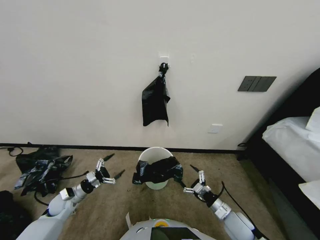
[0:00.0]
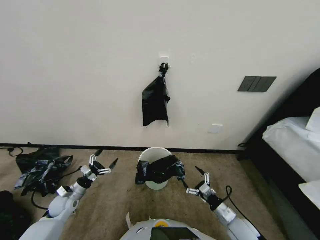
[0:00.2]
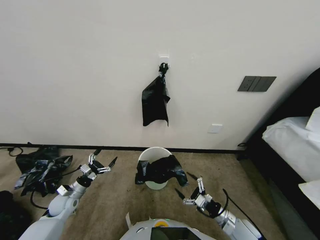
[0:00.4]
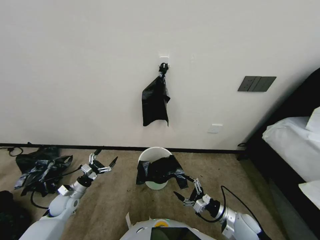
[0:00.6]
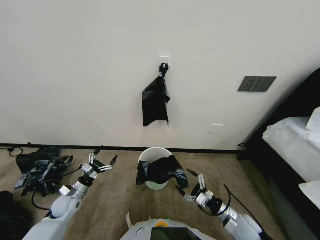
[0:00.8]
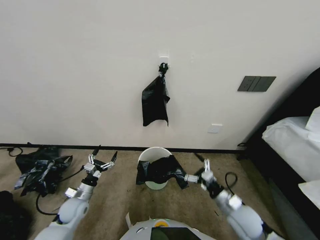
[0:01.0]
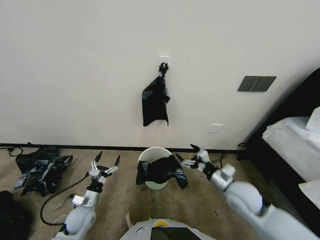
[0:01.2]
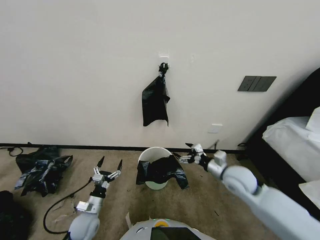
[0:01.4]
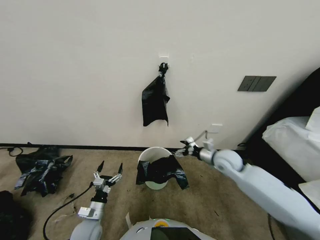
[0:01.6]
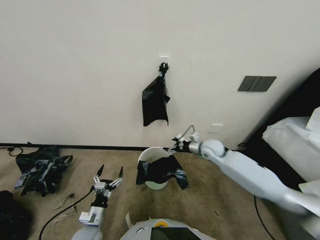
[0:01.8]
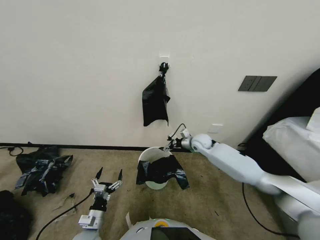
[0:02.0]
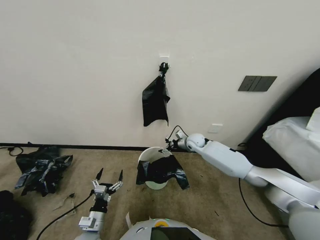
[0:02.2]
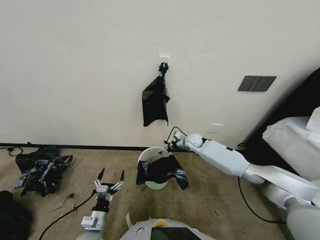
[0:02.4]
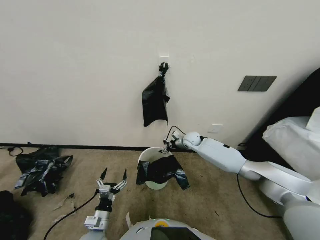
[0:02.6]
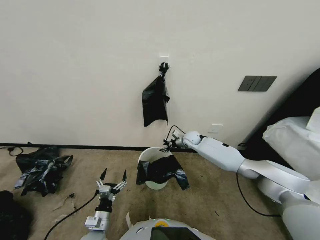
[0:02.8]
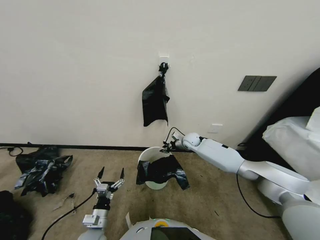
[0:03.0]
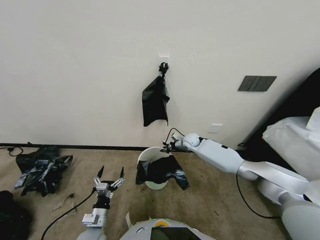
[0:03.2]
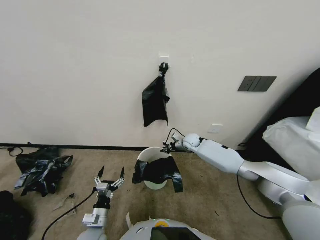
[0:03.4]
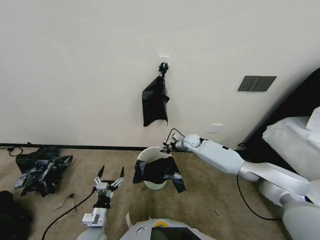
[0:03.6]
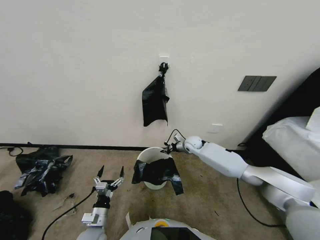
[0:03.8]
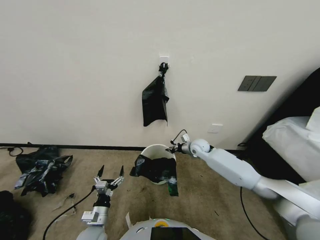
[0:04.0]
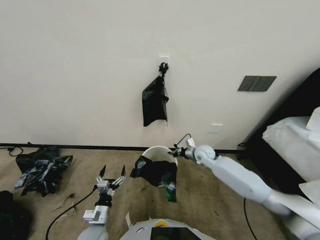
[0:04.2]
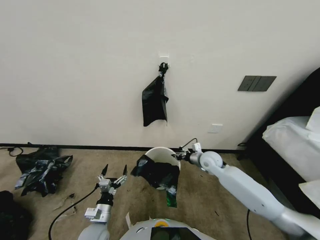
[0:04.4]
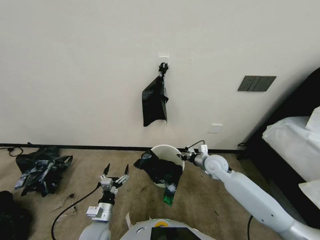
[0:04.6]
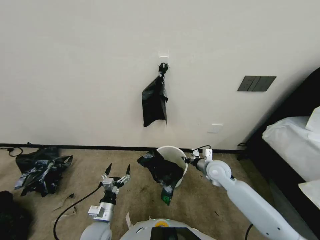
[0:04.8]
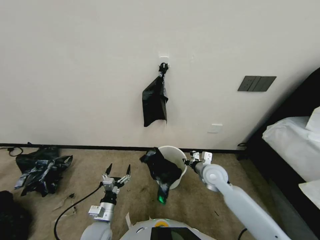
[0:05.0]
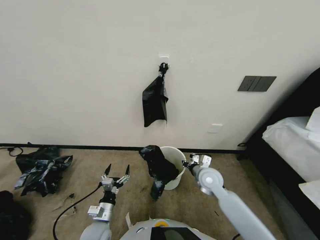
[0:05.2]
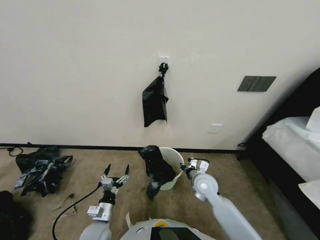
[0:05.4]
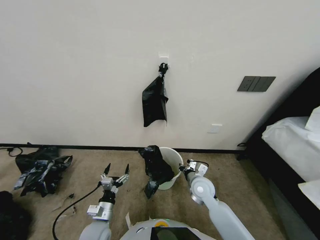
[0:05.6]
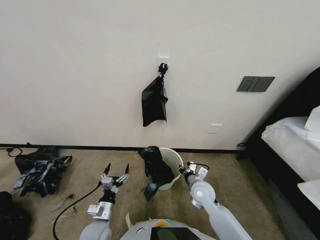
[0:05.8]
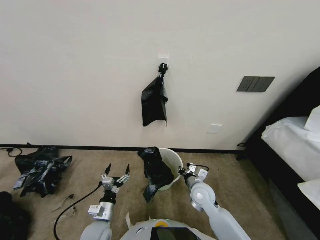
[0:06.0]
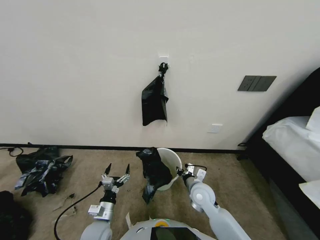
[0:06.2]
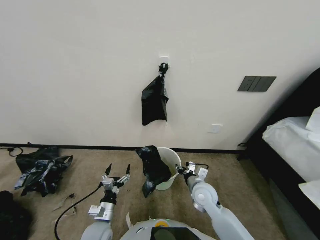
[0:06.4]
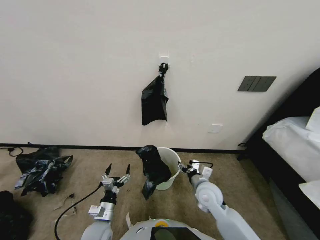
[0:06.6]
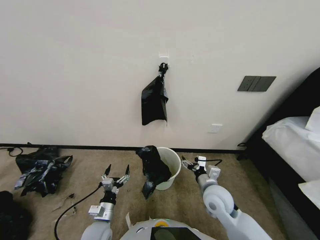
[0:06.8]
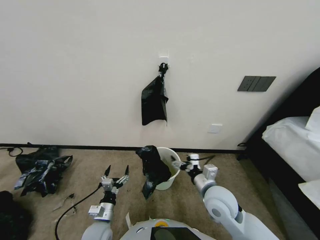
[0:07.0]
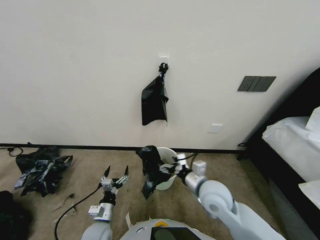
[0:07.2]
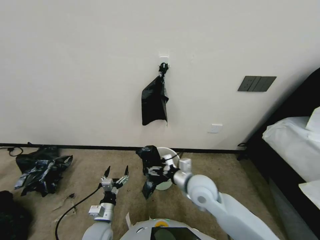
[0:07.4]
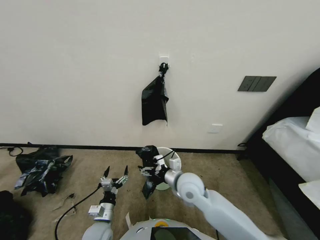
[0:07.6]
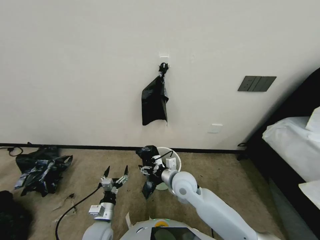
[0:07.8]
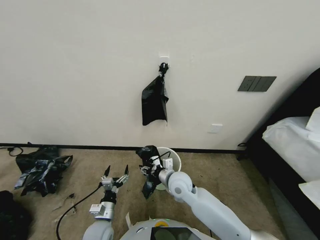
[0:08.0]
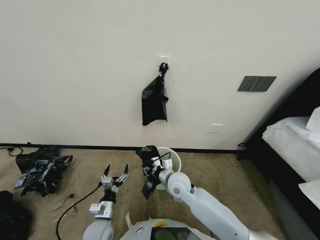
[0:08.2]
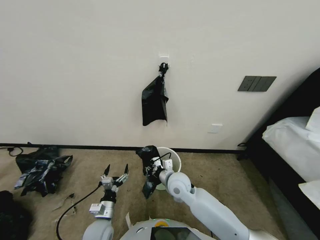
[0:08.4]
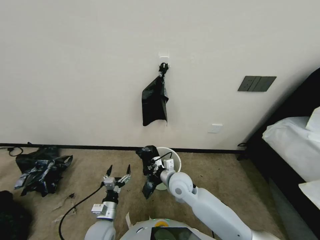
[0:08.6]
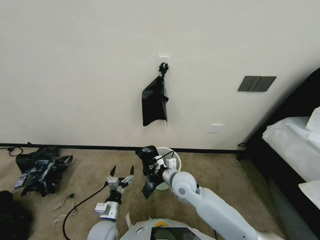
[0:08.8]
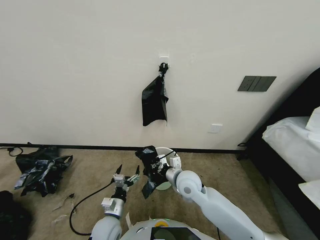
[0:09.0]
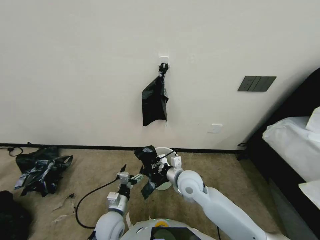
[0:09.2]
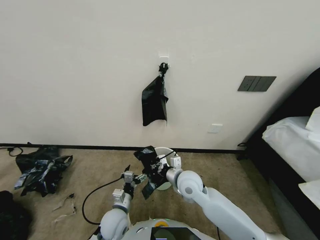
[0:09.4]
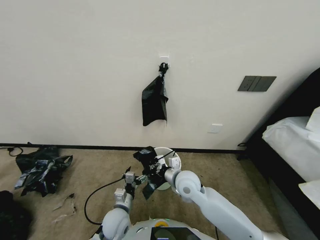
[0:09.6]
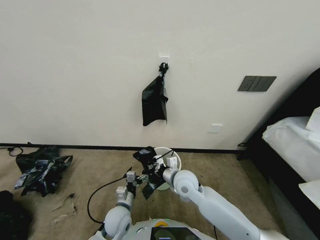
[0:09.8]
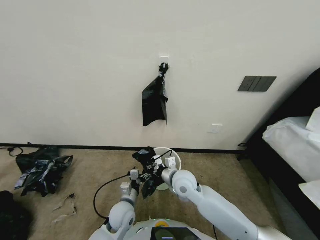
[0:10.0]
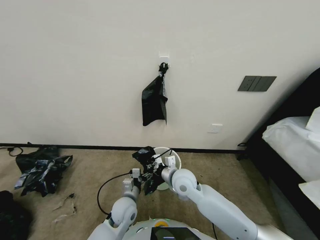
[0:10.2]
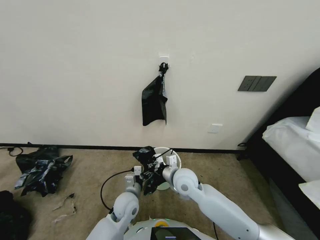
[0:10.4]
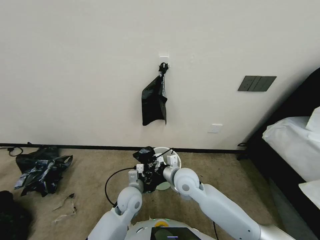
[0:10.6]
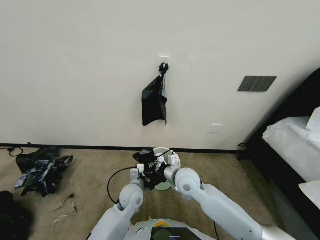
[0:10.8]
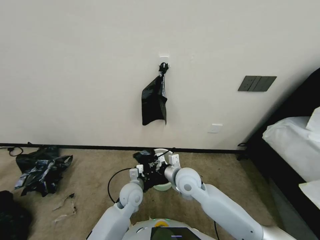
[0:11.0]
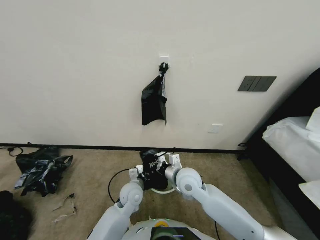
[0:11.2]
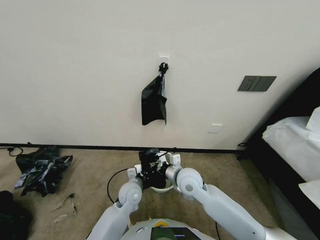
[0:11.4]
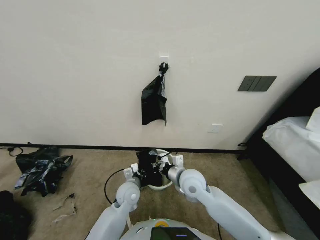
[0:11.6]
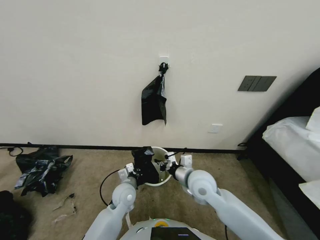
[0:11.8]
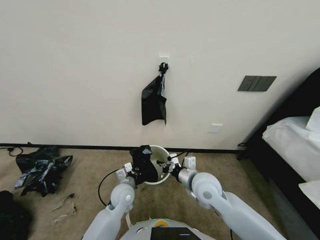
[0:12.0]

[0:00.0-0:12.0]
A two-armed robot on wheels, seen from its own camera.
Task of the whole recording: Place a trash bag onto the trash bin.
0:00.0 to 0:01.6: The left gripper travels to the right and backward by about 15 cm, while the right gripper travels upward and forward by roughly 25 cm.
0:01.6 to 0:03.0: The right gripper goes about 25 cm forward and to the left, and closes its fingers, while the left gripper ends up about 5 cm from where it was.
0:03.0 to 0:04.4: The right gripper goes approximately 15 cm backward, and closes its fingers.
0:04.4 to 0:06.0: The right gripper heads backward and to the left, covering about 15 cm.
0:06.0 to 0:07.6: The right gripper goes about 10 cm upward and to the left, and opens.
0:07.6 to 0:09.0: The right gripper closes.
0:09.0 to 0:10.4: The left gripper goes approximately 10 cm forward and to the right.
0:10.4 to 0:12.0: The left gripper closes up. The right gripper is displaced to the right by some 5 cm.

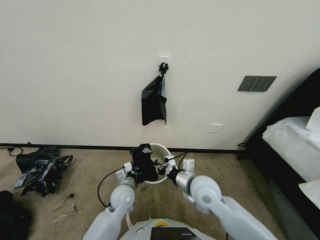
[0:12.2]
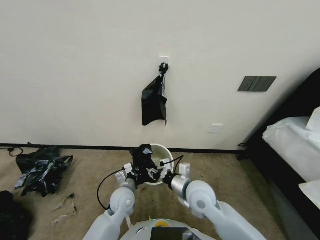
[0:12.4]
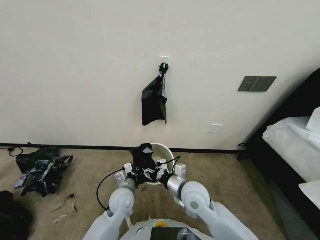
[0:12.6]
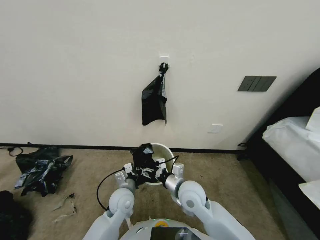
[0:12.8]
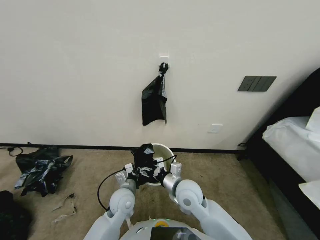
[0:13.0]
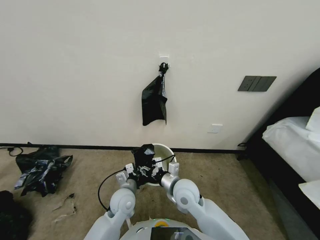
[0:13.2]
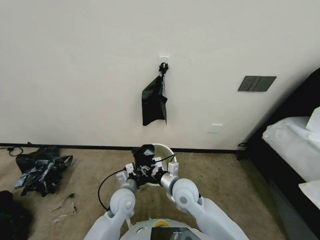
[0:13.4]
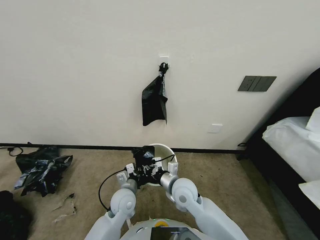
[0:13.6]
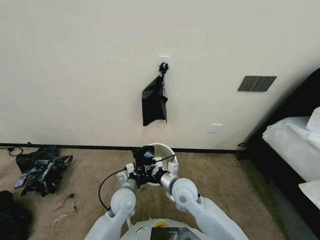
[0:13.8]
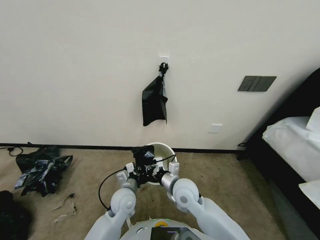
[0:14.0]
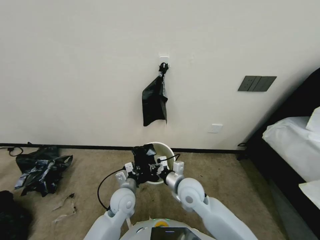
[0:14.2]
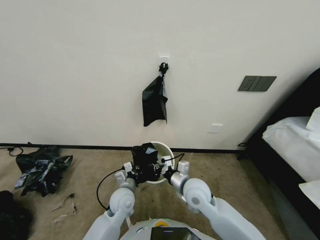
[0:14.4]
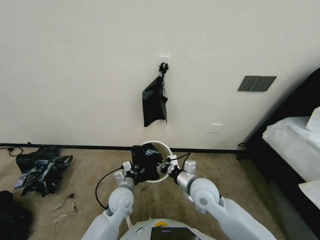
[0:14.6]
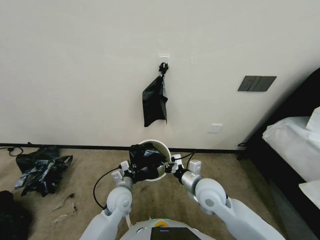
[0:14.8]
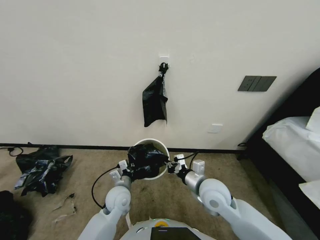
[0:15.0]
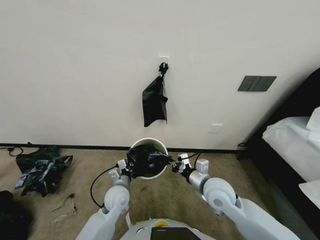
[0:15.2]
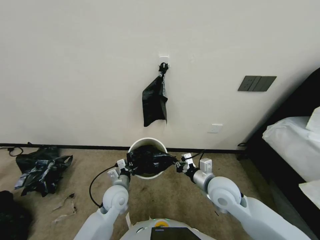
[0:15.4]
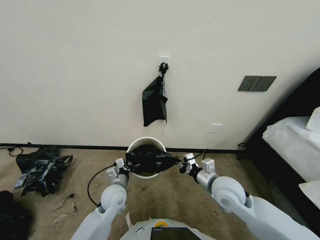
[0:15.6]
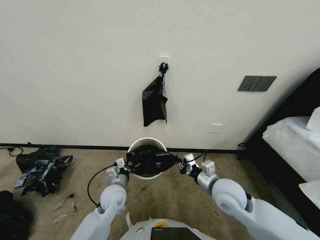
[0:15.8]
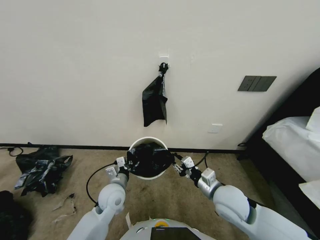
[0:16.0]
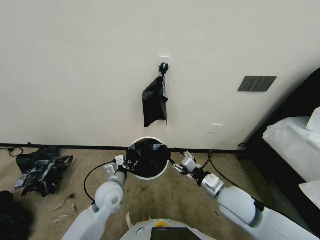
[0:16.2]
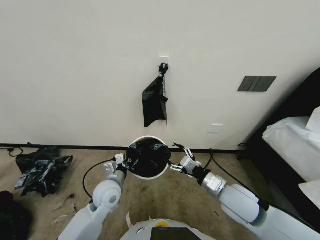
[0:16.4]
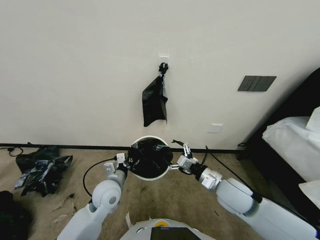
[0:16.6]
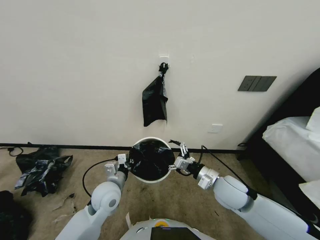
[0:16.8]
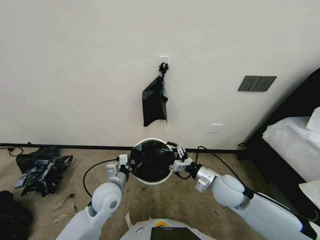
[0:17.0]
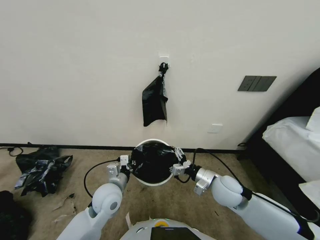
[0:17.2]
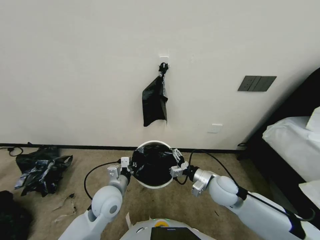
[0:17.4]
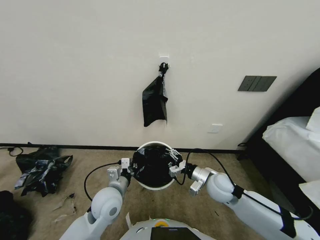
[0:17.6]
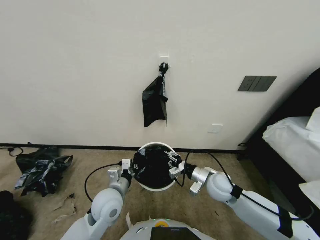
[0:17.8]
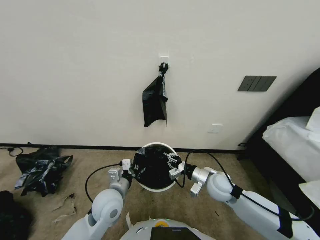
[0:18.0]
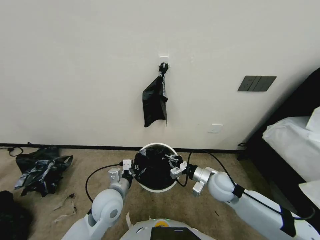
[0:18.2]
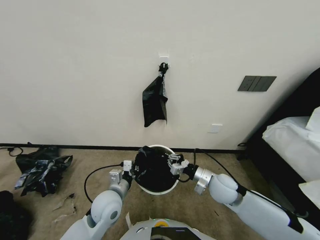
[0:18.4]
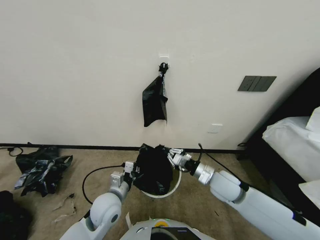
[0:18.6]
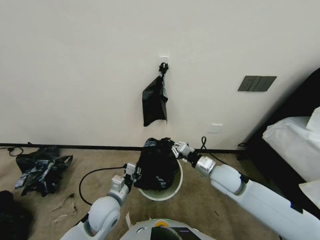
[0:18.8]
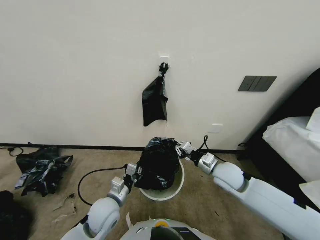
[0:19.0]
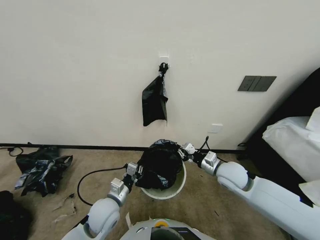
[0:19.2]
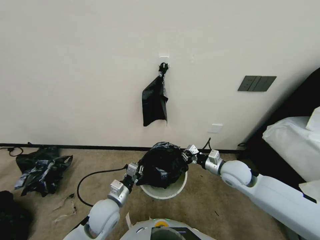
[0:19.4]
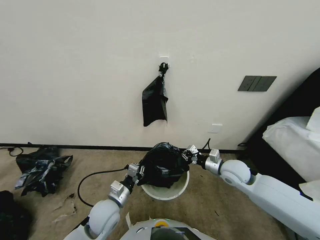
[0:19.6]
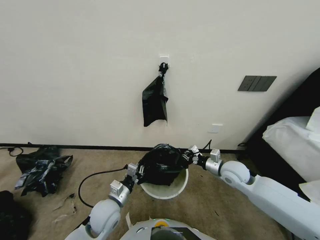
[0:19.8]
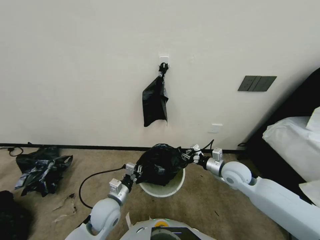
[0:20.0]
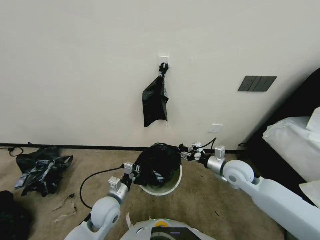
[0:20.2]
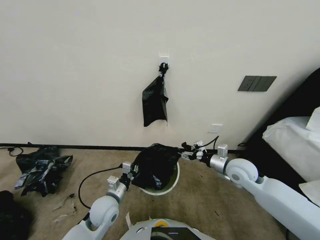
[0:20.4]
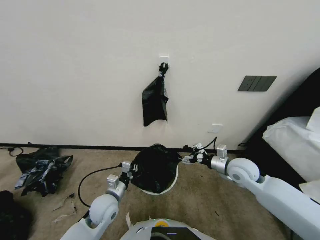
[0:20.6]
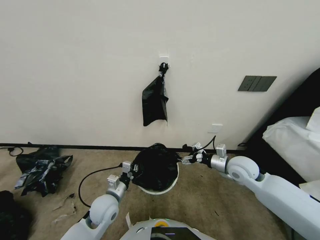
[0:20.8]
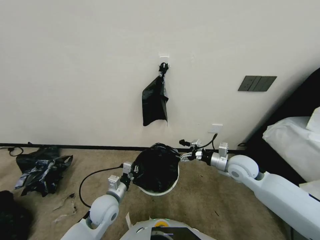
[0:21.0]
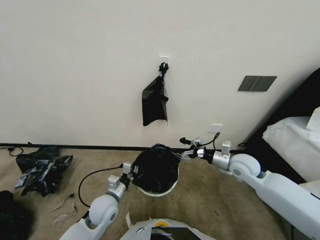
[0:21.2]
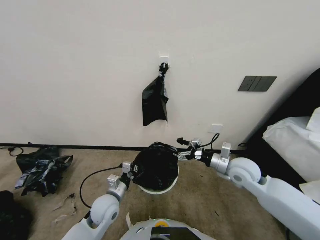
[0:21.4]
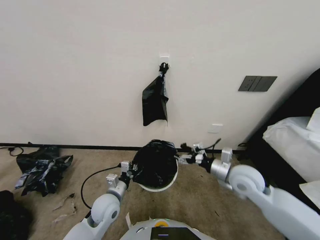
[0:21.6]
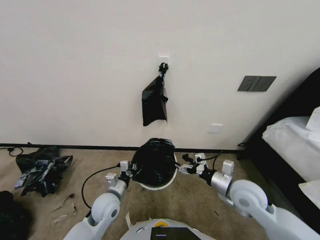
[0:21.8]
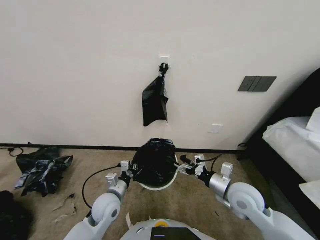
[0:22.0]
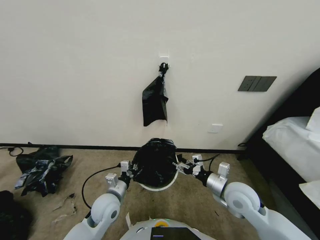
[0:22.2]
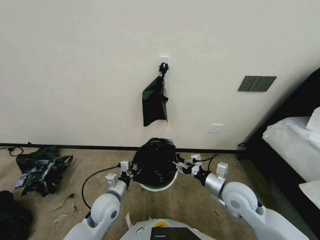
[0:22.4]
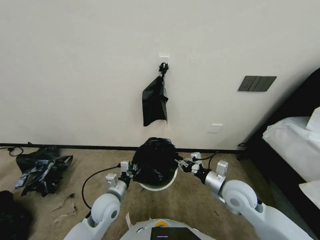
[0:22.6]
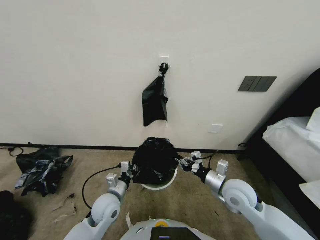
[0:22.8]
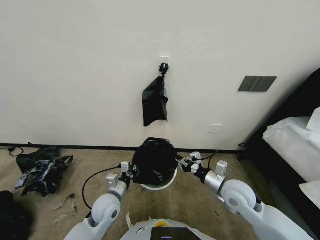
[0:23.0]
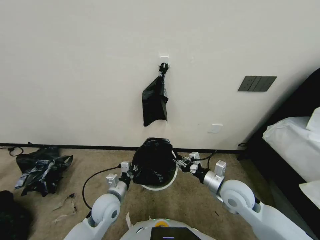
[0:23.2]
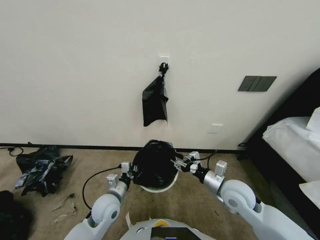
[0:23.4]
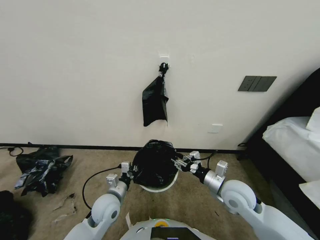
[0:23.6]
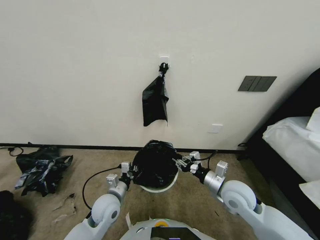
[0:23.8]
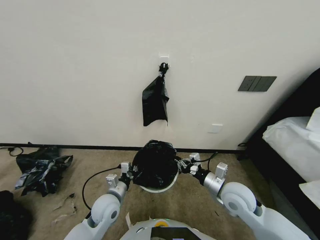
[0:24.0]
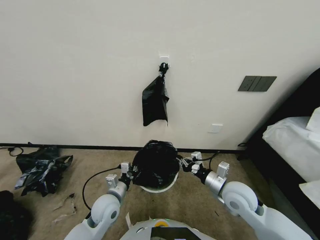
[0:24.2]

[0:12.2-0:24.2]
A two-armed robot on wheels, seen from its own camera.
Task of the whole recording: Place a trash bag onto the trash bin.
0:12.2 to 0:13.8: The right gripper shifts some 5 cm to the left, and opens, then closes again.
0:13.8 to 0:15.2: The right gripper is displaced to the right by some 10 cm.
0:15.2 to 0:16.6: The right gripper ends up roughly 5 cm from where it was, and opens its fingers. The left gripper goes about 5 cm upward.
0:16.6 to 0:18.2: The right gripper shifts some 10 cm downward and forward, and closes.
0:18.2 to 0:19.8: The left gripper shifts by roughly 5 cm; the right gripper moves to the right, about 5 cm.
0:19.8 to 0:21.2: The right gripper opens its fingers.
0:21.2 to 0:22.6: The right gripper goes about 10 cm backward and to the left, and closes.
0:22.6 to 0:24.2: There are only small adjustments of the grippers.
